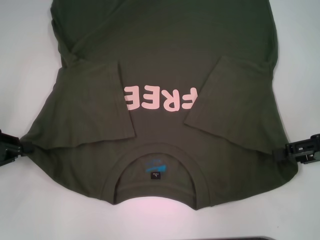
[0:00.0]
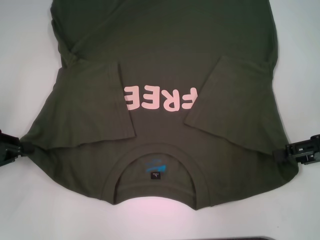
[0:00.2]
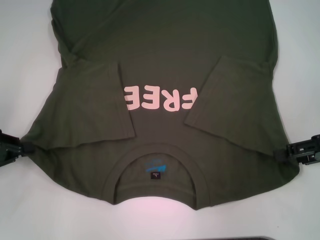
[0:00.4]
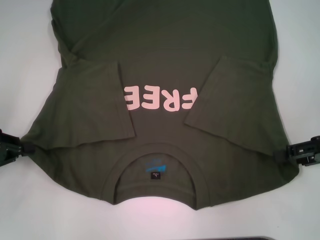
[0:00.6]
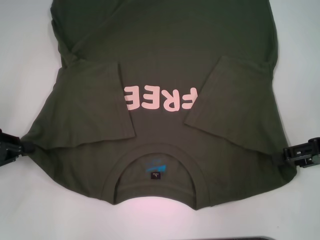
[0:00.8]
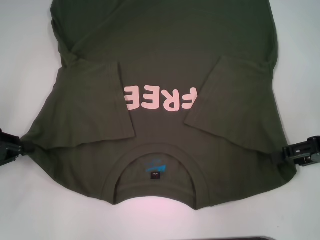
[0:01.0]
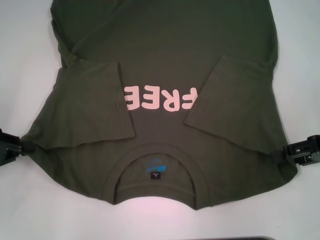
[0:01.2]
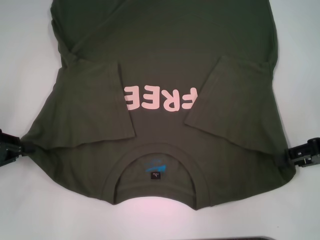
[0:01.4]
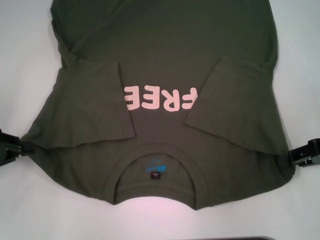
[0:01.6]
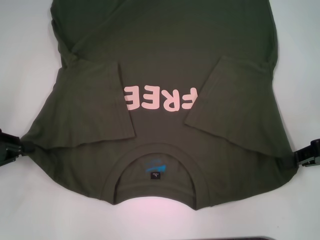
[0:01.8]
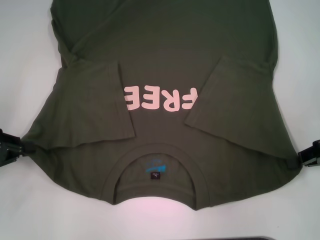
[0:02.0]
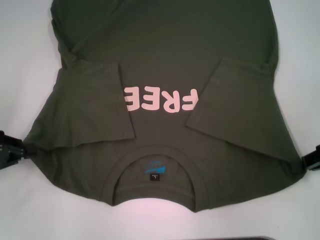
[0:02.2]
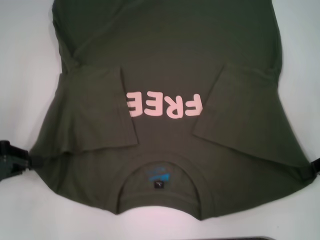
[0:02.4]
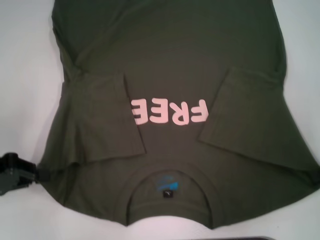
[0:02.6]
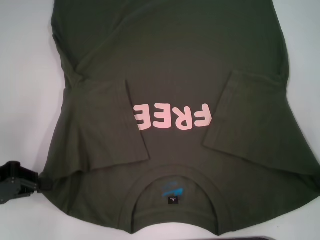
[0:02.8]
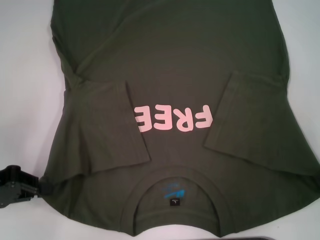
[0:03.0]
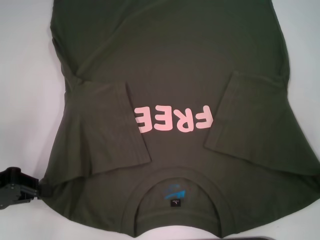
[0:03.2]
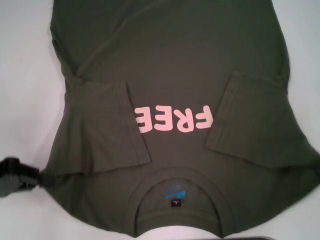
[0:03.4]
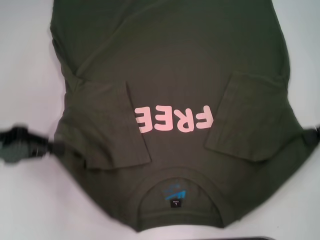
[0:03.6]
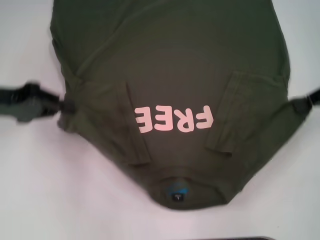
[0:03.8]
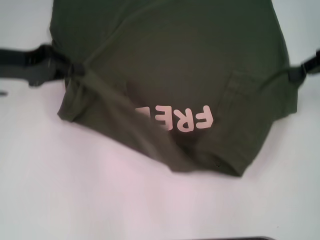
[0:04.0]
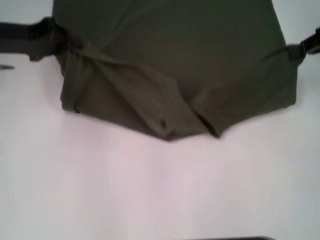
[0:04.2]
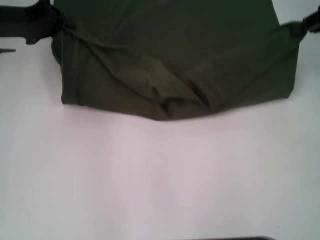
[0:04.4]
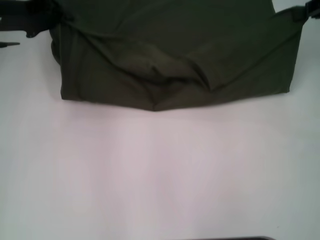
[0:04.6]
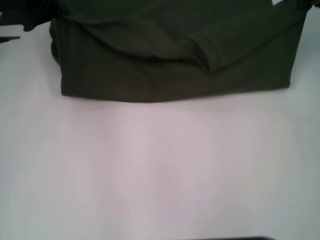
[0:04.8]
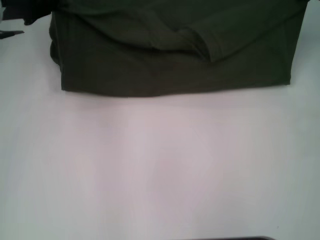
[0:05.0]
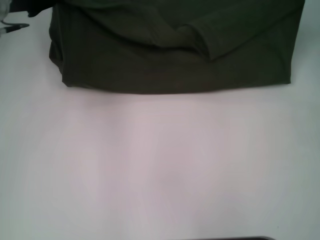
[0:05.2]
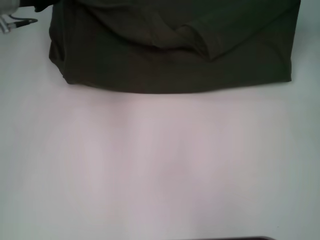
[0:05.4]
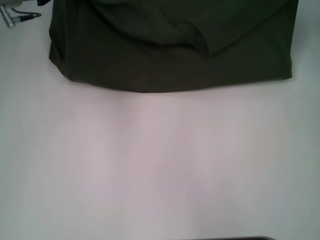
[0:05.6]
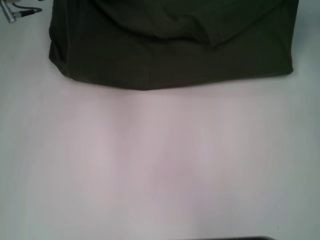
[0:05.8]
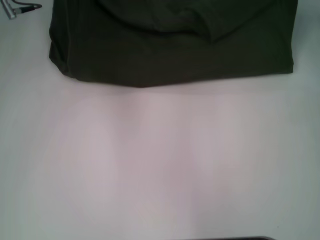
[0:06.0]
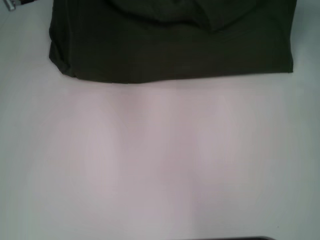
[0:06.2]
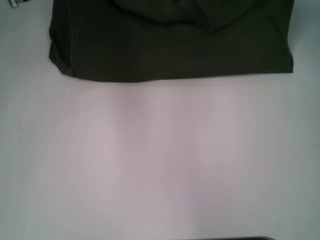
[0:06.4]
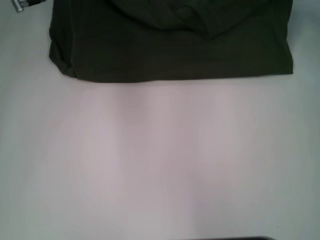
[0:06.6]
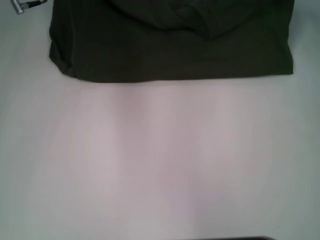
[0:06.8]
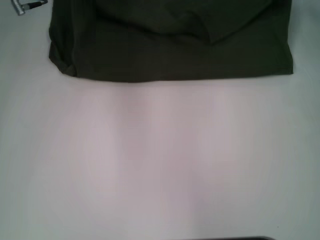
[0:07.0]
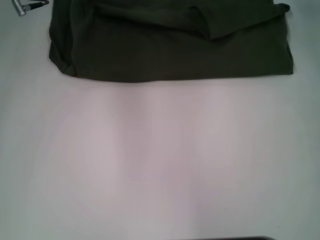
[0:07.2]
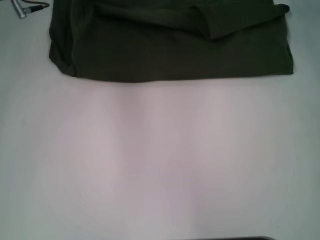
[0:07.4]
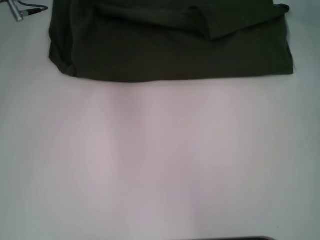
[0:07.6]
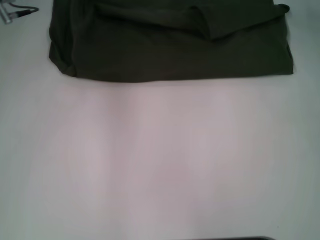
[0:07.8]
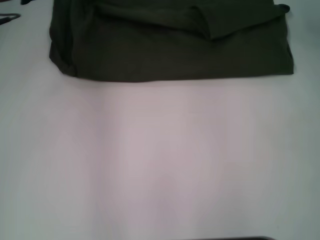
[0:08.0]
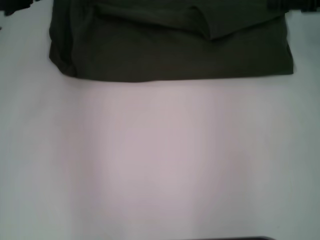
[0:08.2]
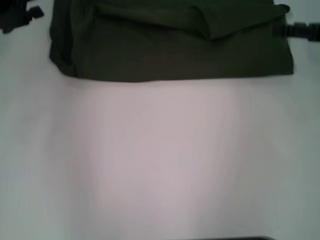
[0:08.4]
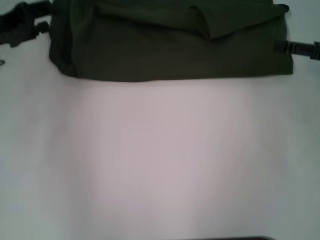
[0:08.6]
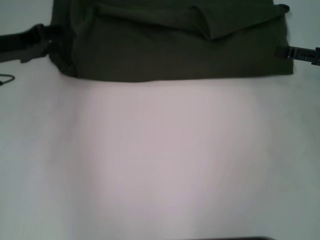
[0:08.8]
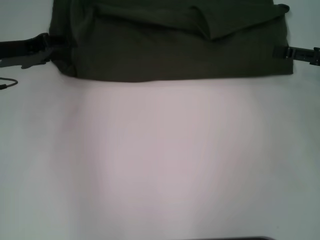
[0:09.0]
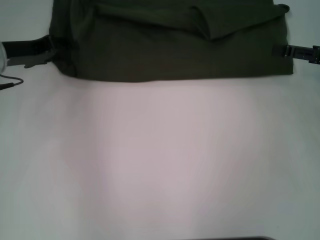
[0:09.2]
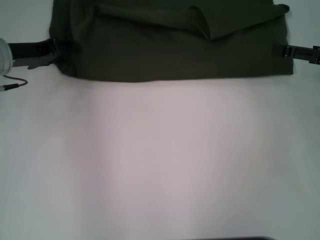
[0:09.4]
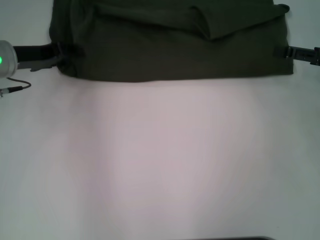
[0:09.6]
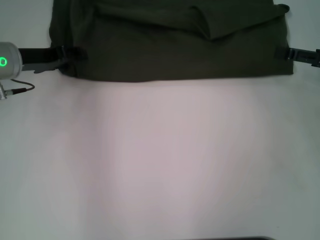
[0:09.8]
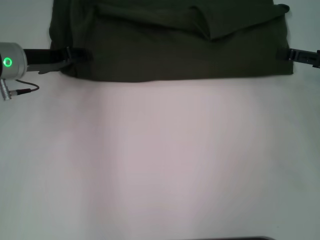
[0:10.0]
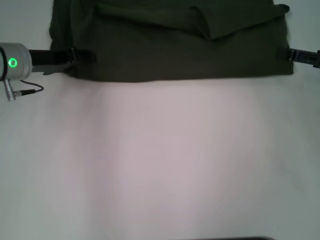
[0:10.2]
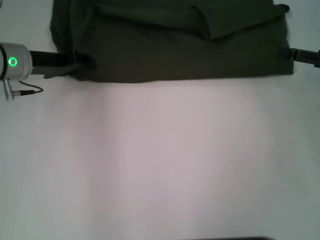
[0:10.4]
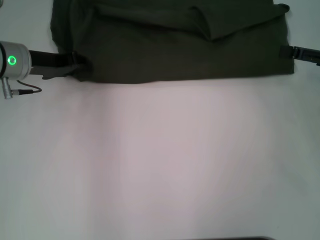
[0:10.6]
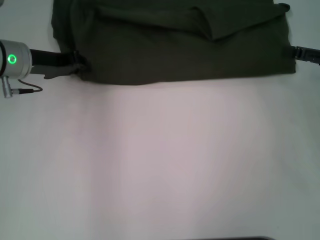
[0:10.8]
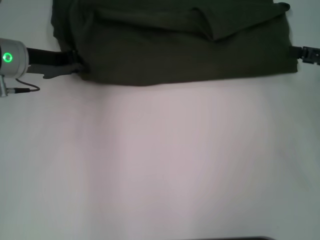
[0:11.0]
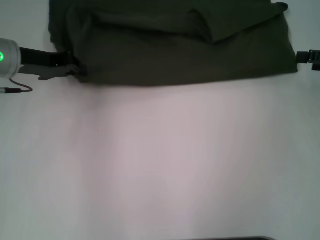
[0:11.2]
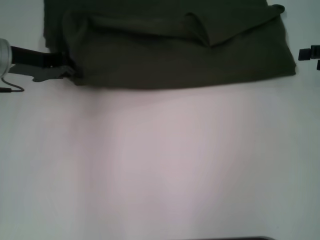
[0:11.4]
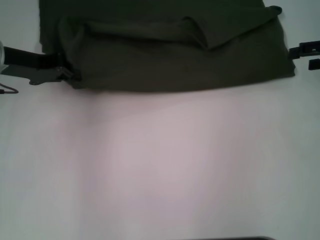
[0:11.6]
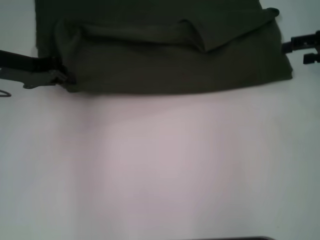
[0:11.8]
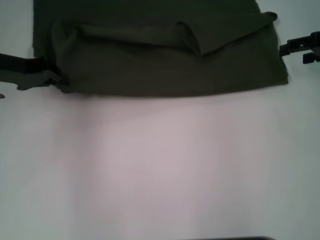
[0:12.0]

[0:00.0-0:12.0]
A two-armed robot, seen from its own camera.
Step, 0:01.8 to 0:07.4: Fold the clothes with your left hand.
Step, 0:01.8 to 0:07.4: Fold the clothes with your right hand.
0:00.0 to 0:01.6: The two grippers keep their place.
0:01.6 to 0:03.0: The right gripper closes its fingers.
0:03.0 to 0:04.4: The grippers both shift forward and upward by approximately 15 cm.
0:04.4 to 0:06.0: Both grippers travel together forward, approximately 5 cm.
0:06.0 to 0:07.6: The left gripper opens up. The right gripper opens.
0:07.6 to 0:09.0: The right gripper goes about 15 cm backward and downward, and opens its fingers; the left gripper heads backward and to the left, covering approximately 10 cm.
0:09.0 to 0:10.4: The grippers make only small movements.
0:10.4 to 0:12.0: The left gripper ends up about 5 cm from where it was, and closes up. The right gripper shifts roughly 10 cm forward.

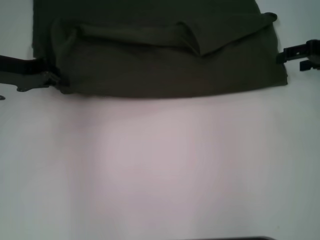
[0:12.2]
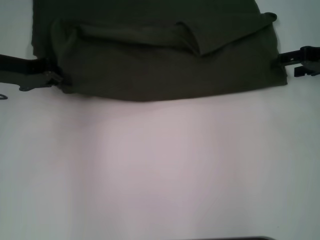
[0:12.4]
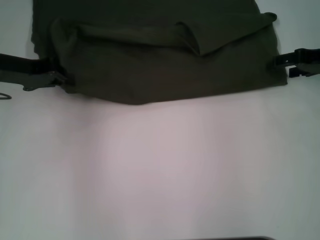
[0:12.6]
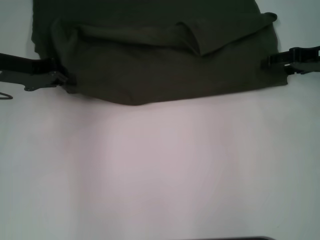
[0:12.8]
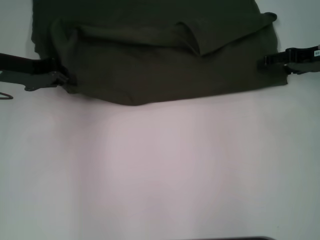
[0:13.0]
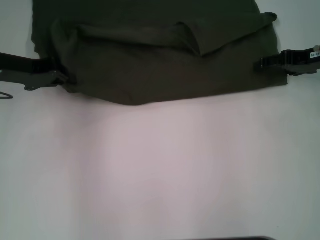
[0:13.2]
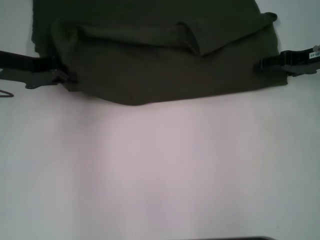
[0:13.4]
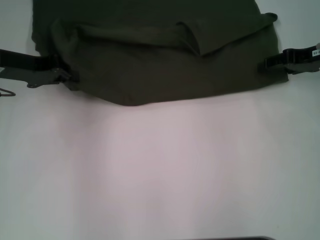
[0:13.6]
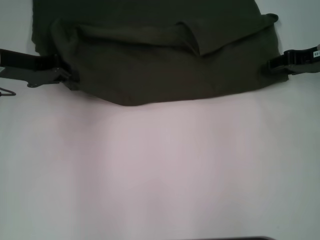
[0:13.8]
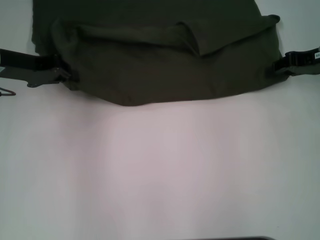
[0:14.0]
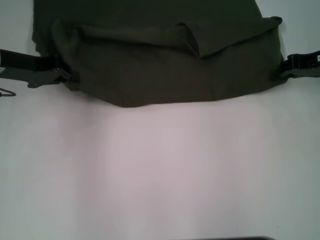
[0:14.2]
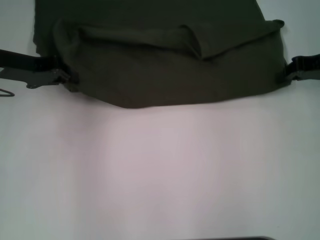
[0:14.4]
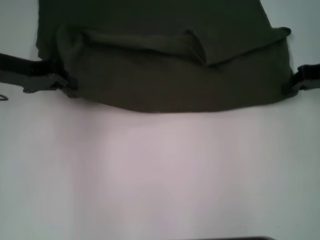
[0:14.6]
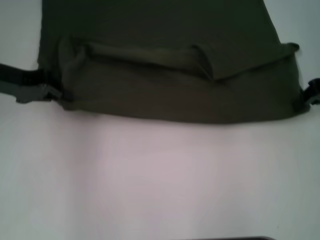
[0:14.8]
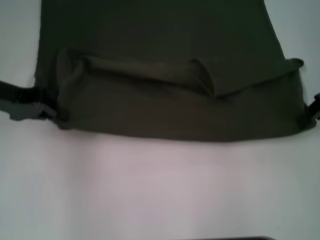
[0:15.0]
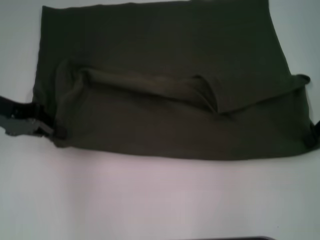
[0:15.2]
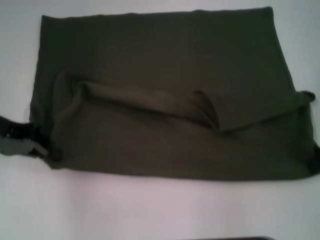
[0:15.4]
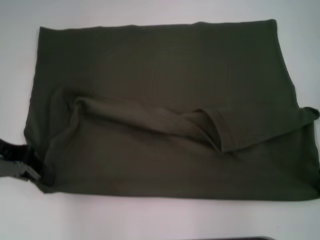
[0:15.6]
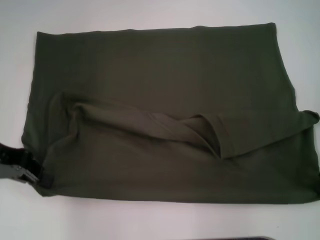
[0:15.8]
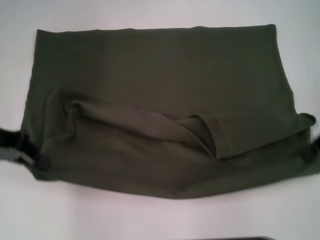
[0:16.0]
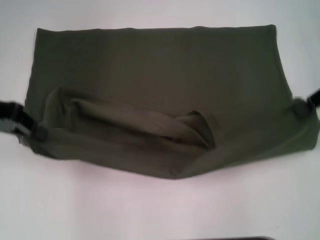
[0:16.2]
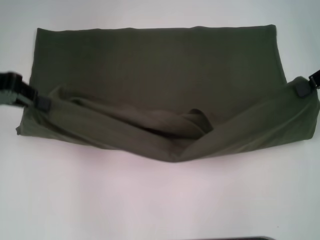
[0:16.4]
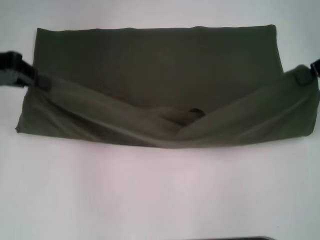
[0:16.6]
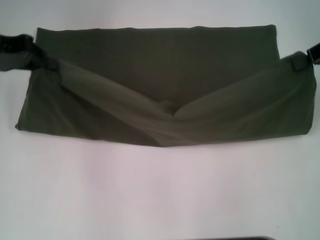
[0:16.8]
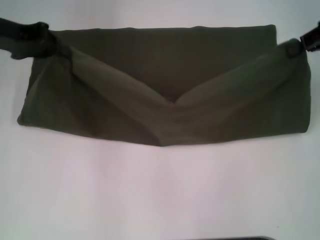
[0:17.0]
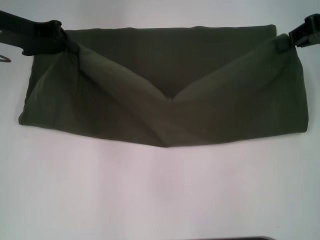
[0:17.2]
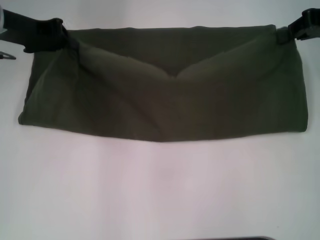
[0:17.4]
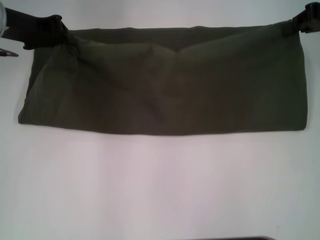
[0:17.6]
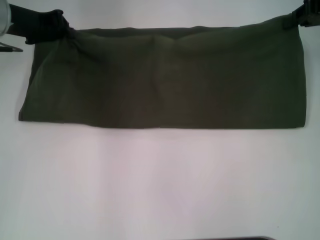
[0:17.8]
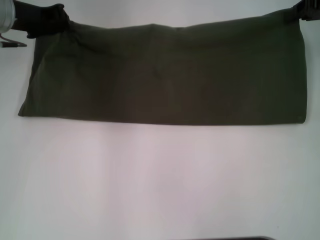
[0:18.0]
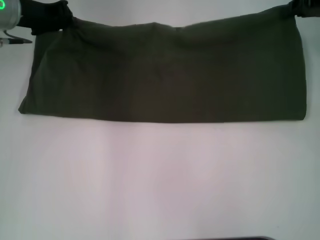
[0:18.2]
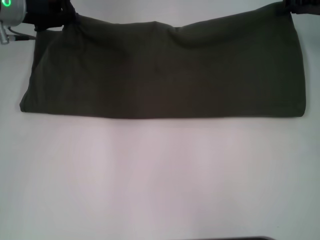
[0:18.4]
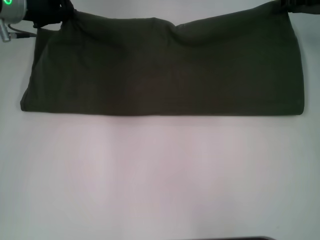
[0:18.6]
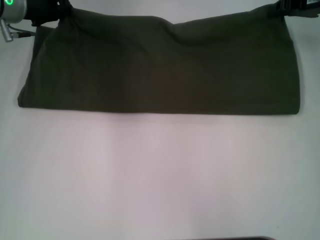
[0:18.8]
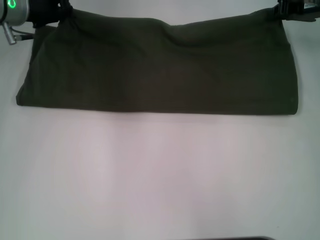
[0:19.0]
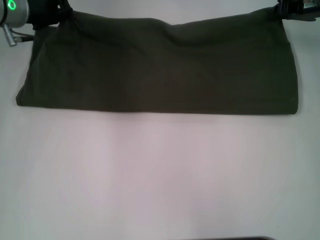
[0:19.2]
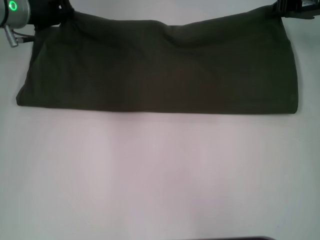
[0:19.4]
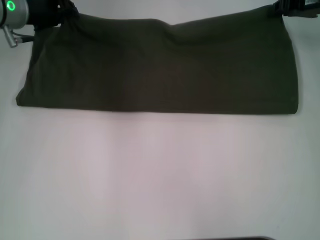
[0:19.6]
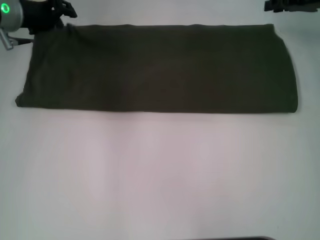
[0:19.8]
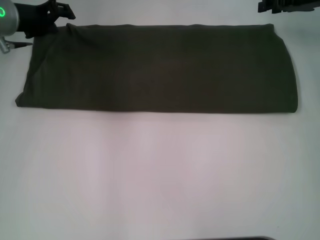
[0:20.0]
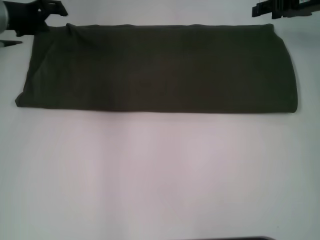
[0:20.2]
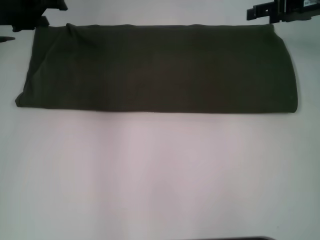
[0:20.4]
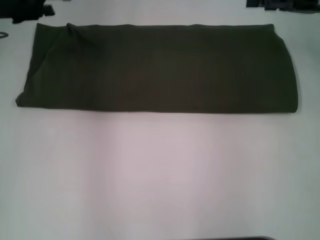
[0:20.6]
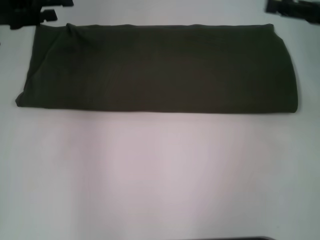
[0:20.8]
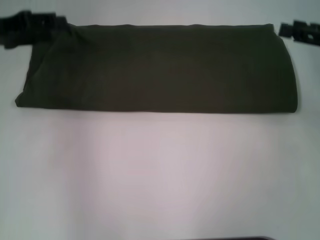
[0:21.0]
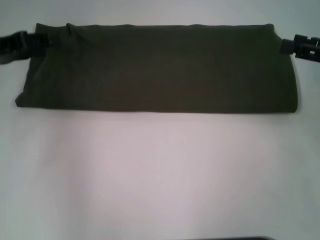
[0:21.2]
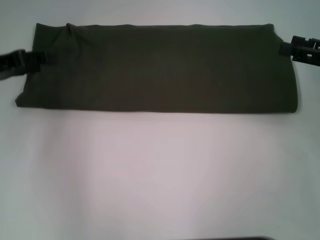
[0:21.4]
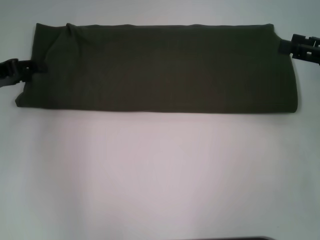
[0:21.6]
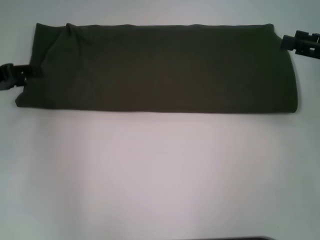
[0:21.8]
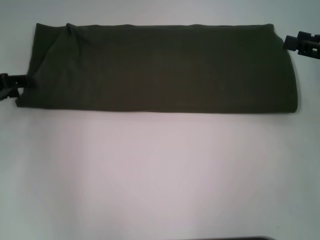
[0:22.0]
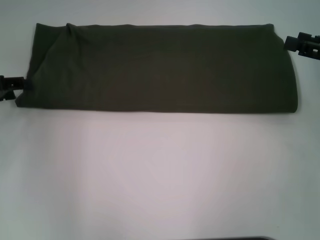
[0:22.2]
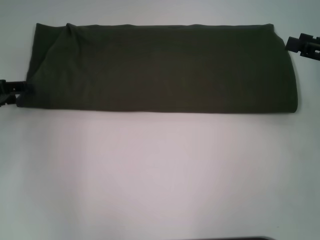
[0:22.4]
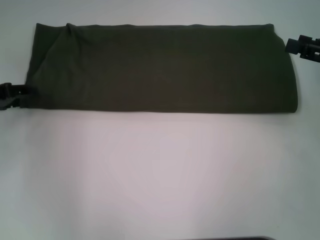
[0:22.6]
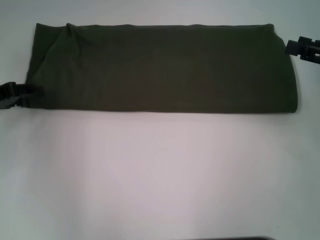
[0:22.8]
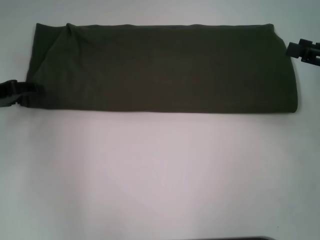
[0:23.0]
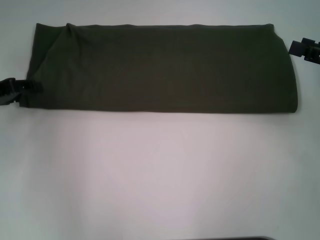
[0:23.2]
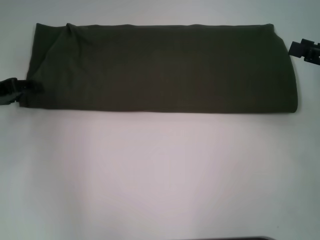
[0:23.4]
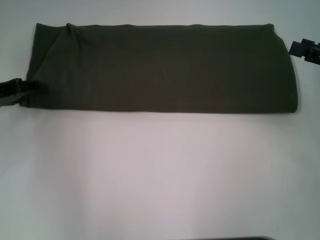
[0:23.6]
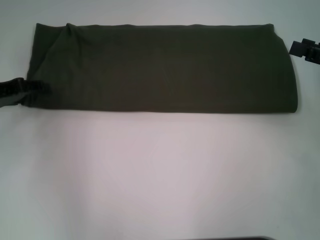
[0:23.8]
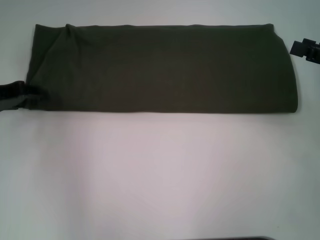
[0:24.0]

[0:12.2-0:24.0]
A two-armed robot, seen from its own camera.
Step, 0:12.2 to 0:15.8: Pull the clothes with your left hand.
Step, 0:12.2 to 0:15.8: Pull the clothes with your right hand.
Step, 0:16.0 to 0:19.8: Fold the clothes with your left hand.
Step, 0:16.0 to 0:19.8: Fold the clothes with your right hand.
0:12.2 to 0:13.6: The grippers move only a little.
0:13.6 to 0:15.2: The right gripper is displaced backward by about 5 cm, and closes its fingers. The left gripper moves roughly 5 cm.
0:15.2 to 0:16.6: The two grippers go roughly 5 cm upward.
0:16.6 to 0:18.2: The left gripper goes some 10 cm forward and to the right, while the right gripper is displaced forward by roughly 5 cm.
0:18.2 to 0:19.6: The grippers move only a little.
0:19.6 to 0:21.0: The left gripper heads backward and to the left, covering roughly 10 cm, and opens up; the right gripper heads backward, covering roughly 15 cm, and opens its fingers.
0:21.0 to 0:22.6: The left gripper shifts some 5 cm downward.
0:22.6 to 0:24.0: The grippers make only small movements.
